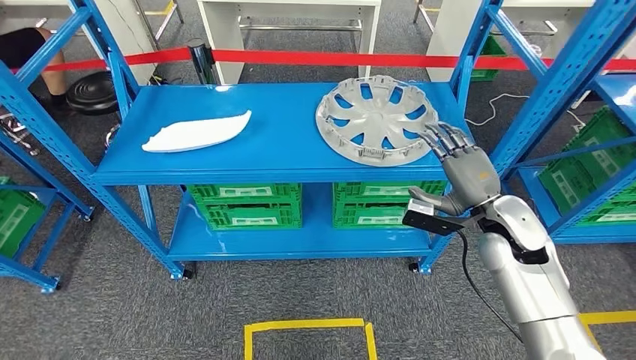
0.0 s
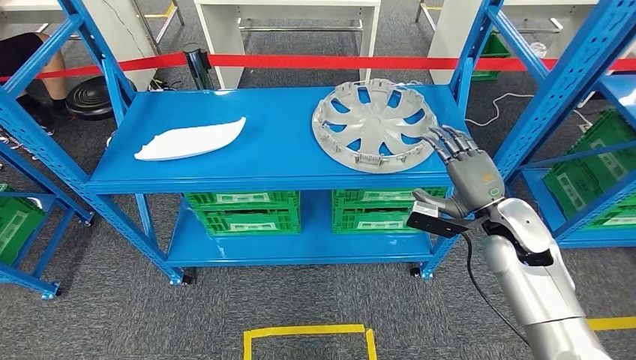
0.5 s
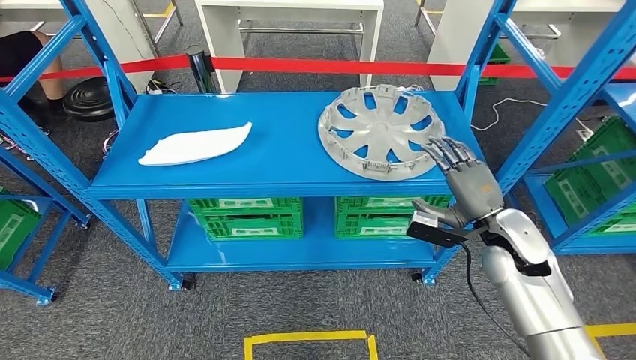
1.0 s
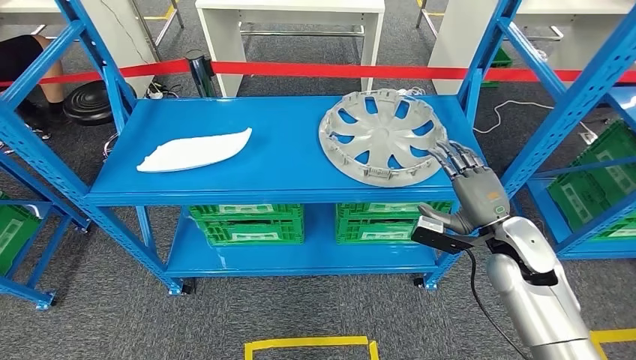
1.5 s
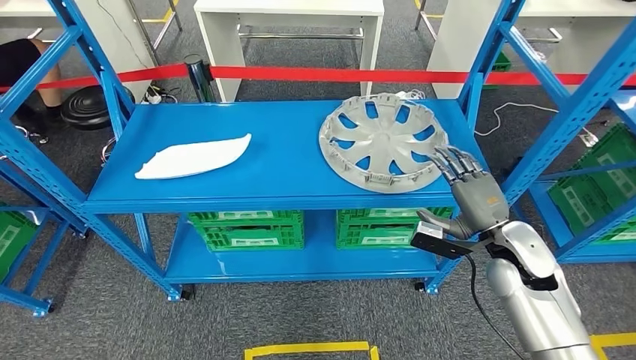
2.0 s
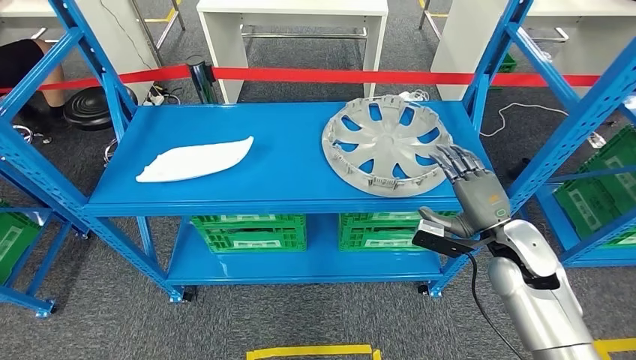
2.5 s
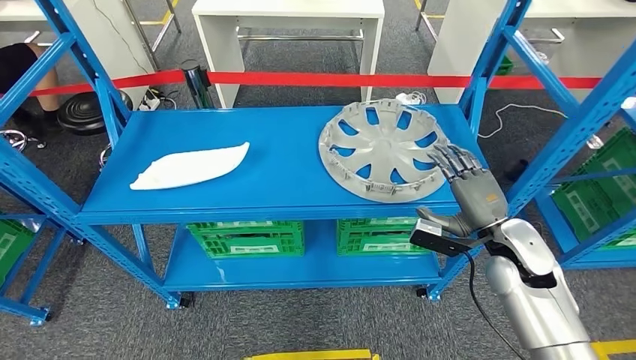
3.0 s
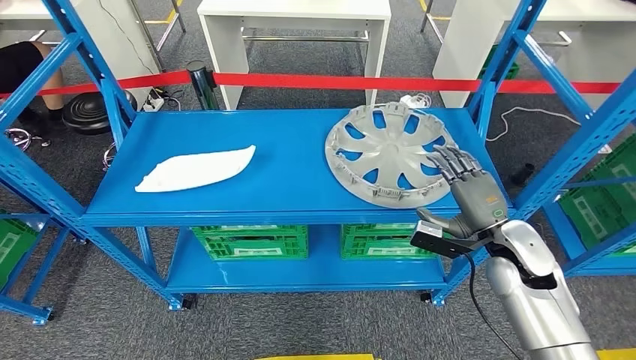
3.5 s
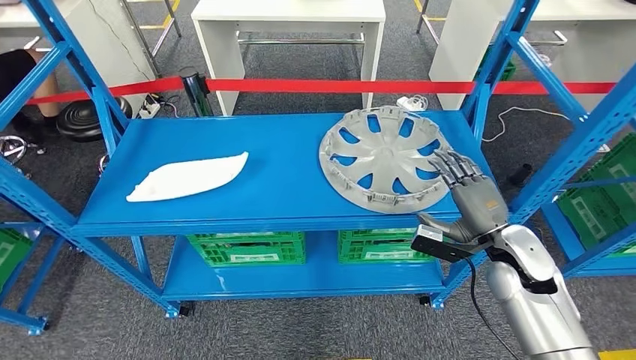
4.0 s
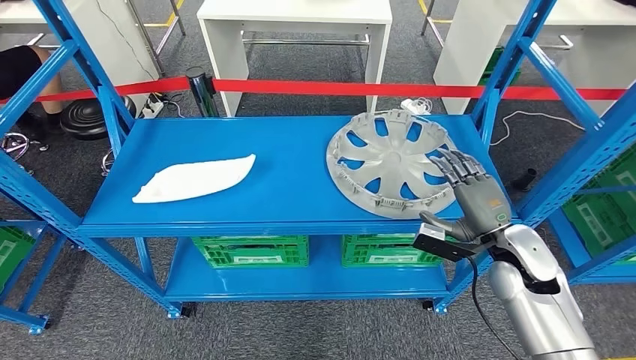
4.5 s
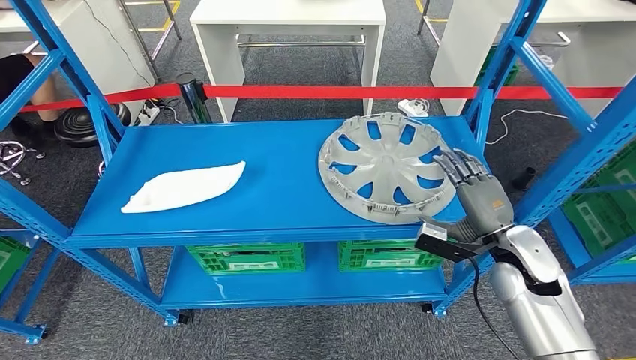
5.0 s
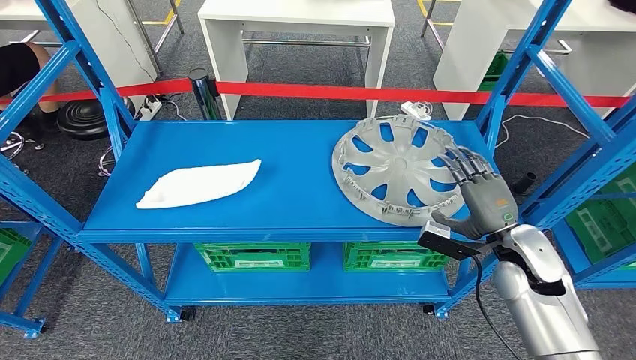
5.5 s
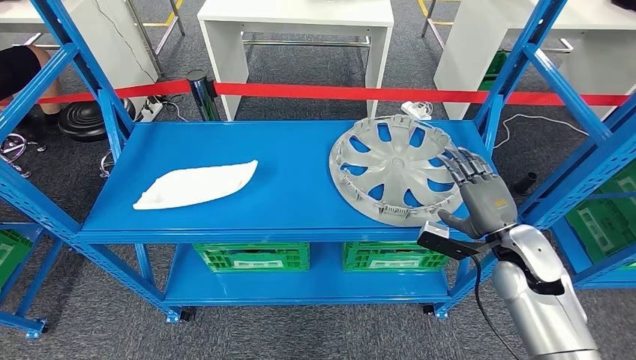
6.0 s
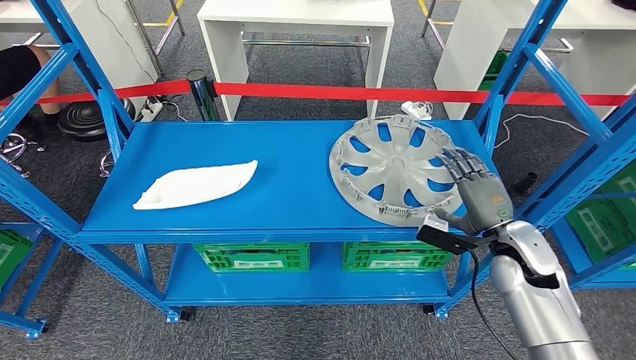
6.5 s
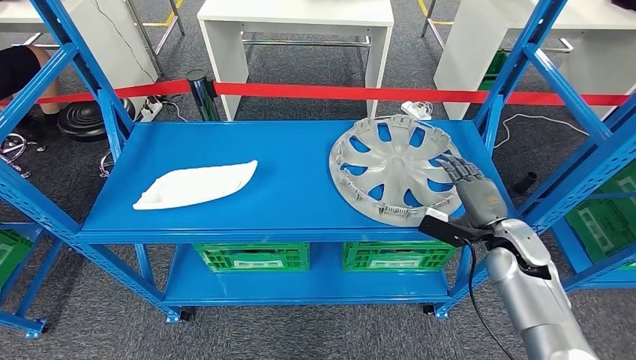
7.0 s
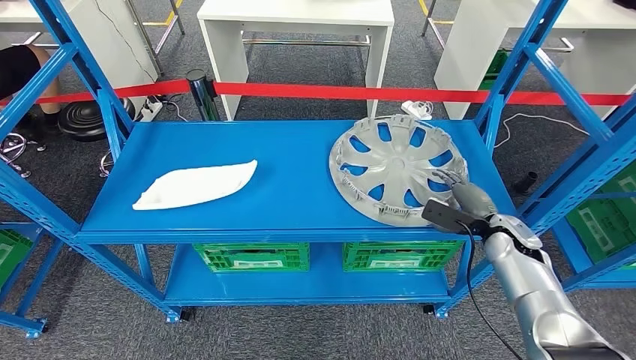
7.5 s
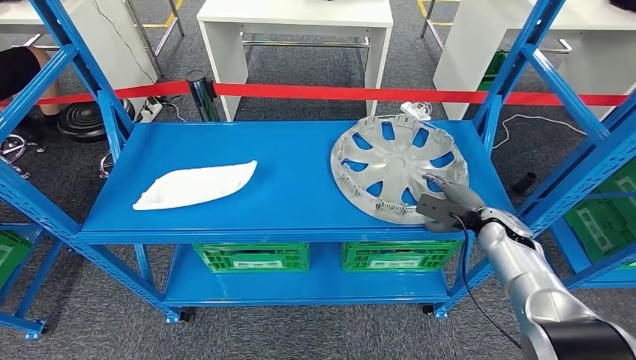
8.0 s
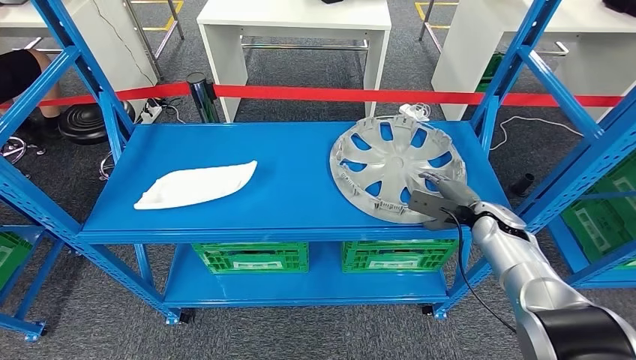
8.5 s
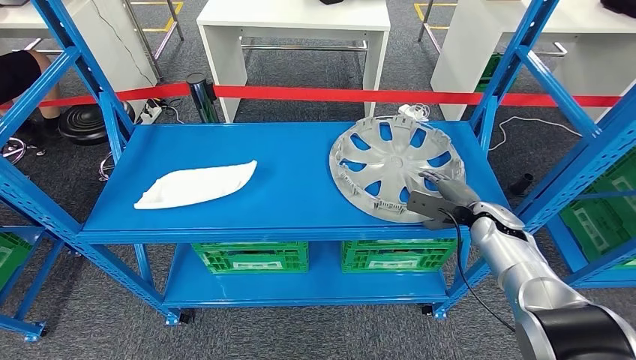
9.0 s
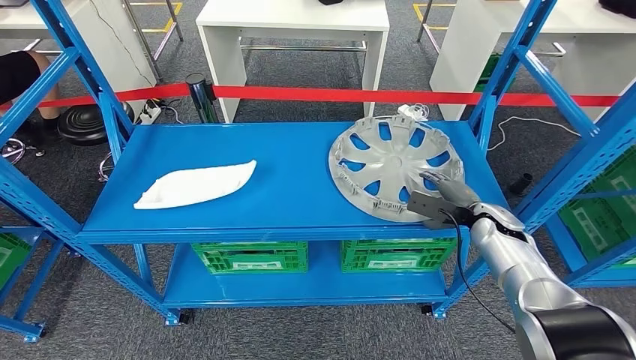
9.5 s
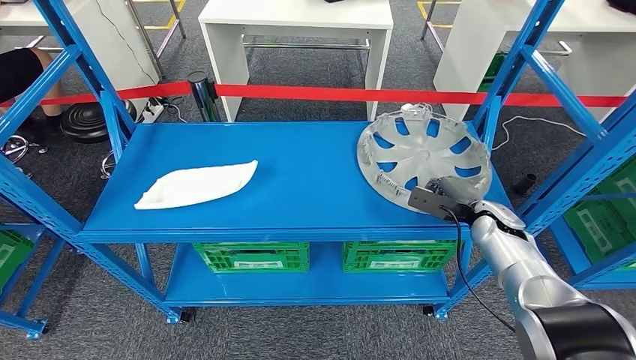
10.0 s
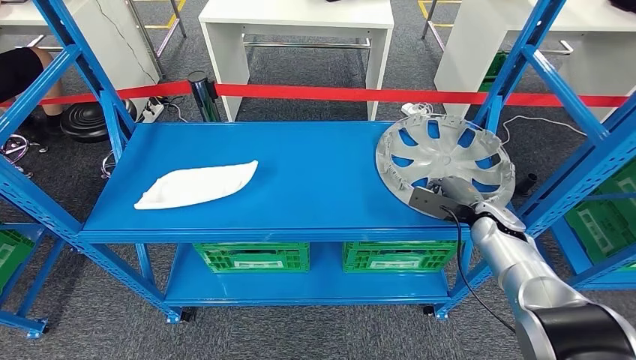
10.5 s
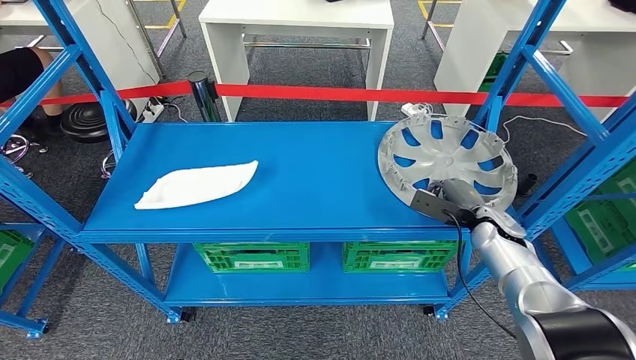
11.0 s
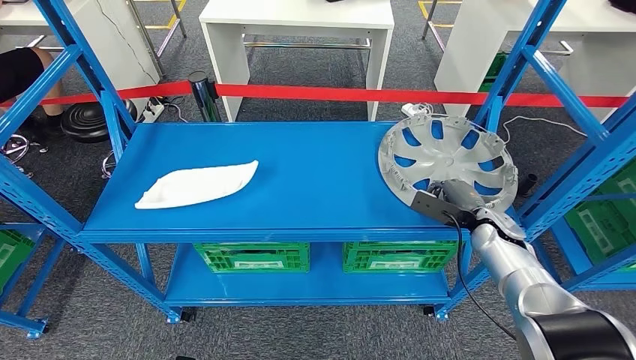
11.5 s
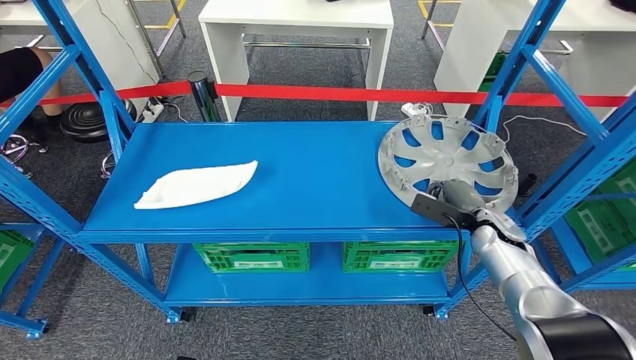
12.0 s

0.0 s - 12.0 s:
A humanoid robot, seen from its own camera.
6.0 s - 8.0 s: The right hand is displaced forward and downward by roughly 10 cm.
8.0 s - 12.0 s: There are only small adjustments of the hands.

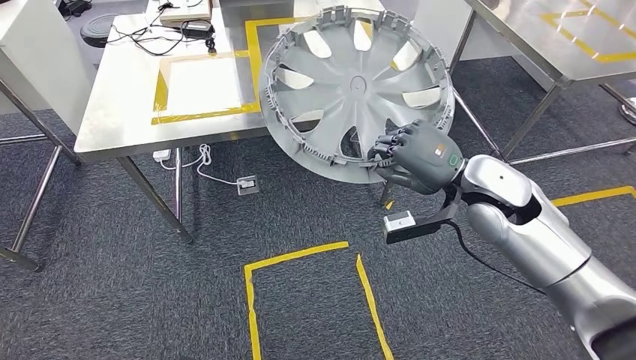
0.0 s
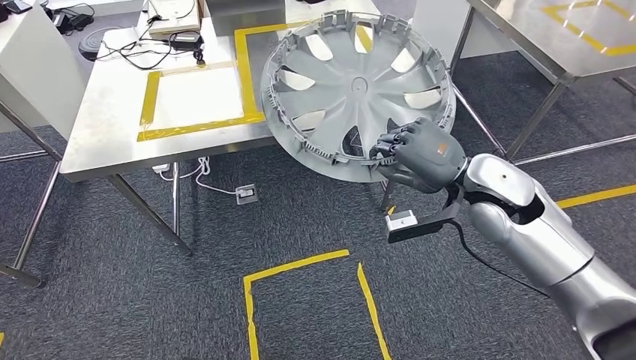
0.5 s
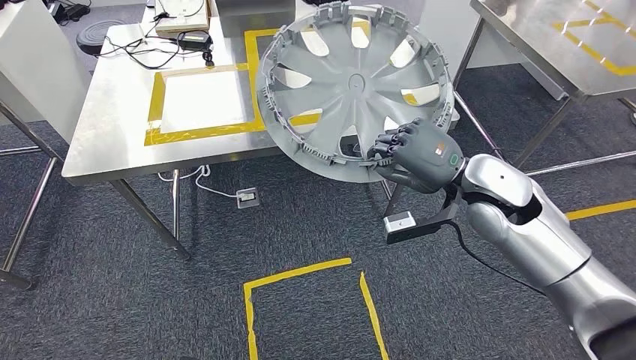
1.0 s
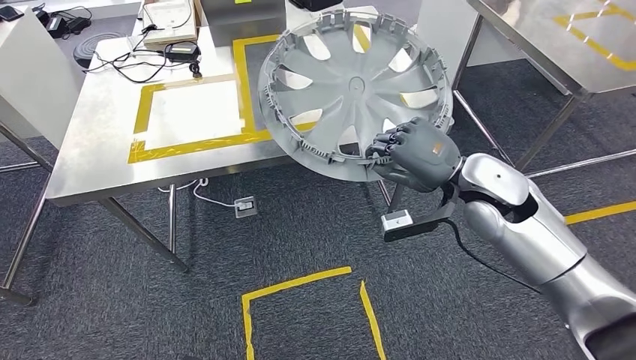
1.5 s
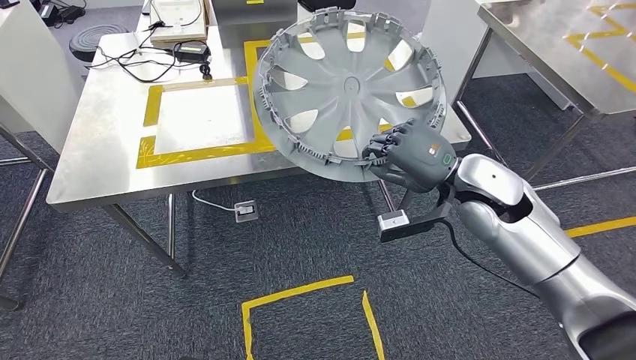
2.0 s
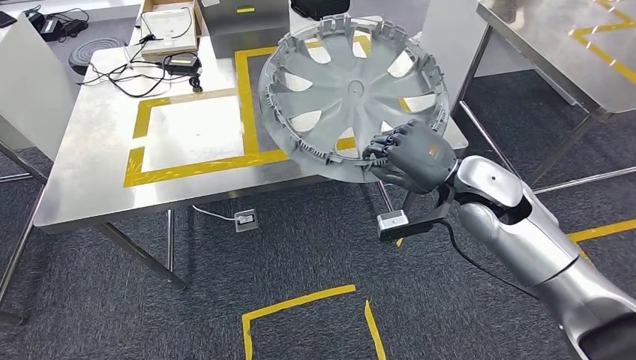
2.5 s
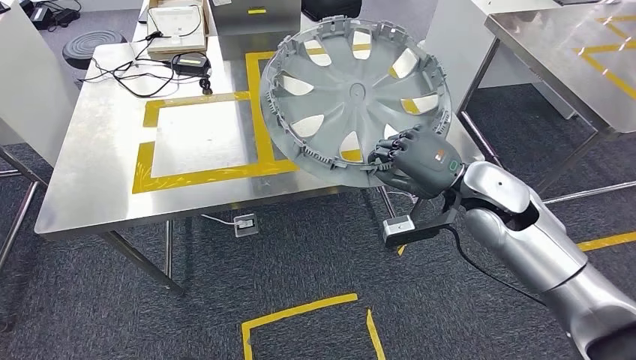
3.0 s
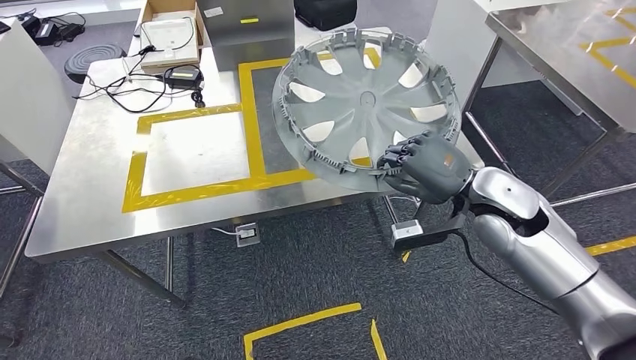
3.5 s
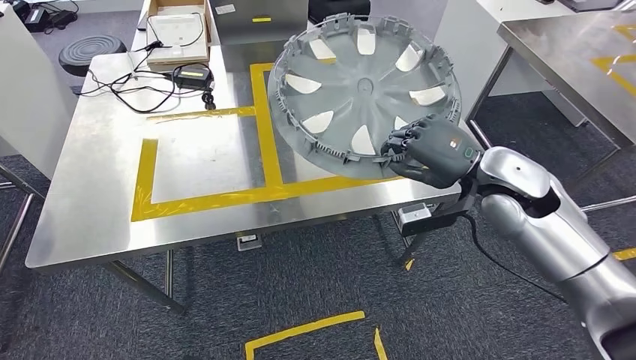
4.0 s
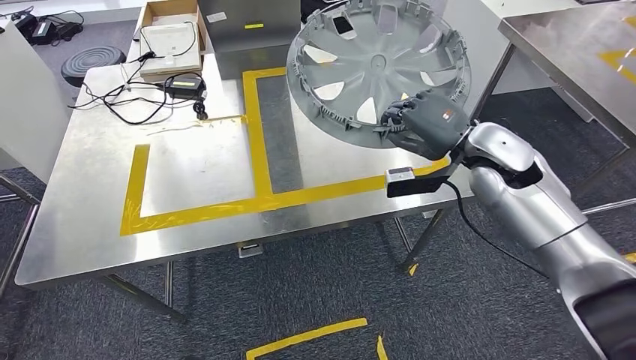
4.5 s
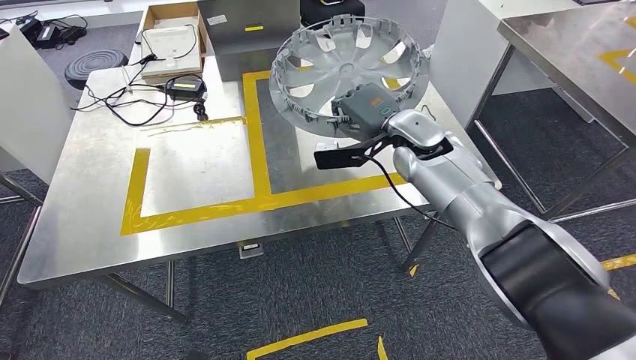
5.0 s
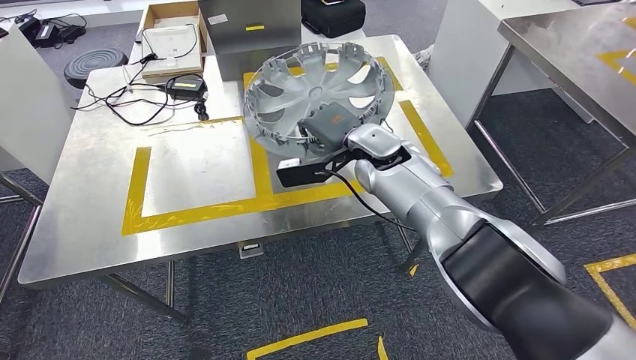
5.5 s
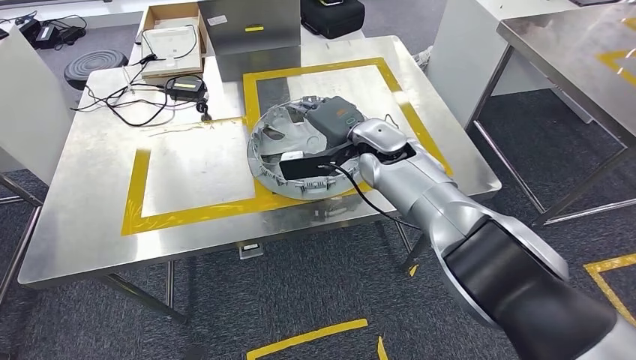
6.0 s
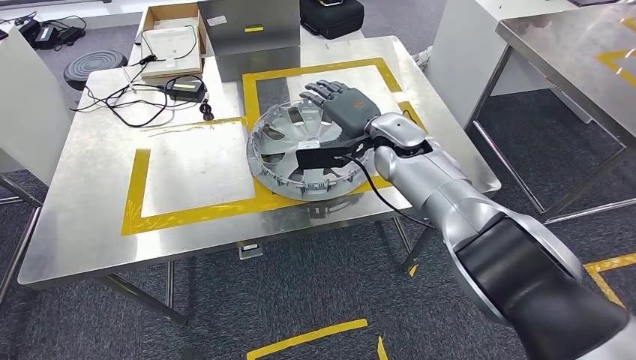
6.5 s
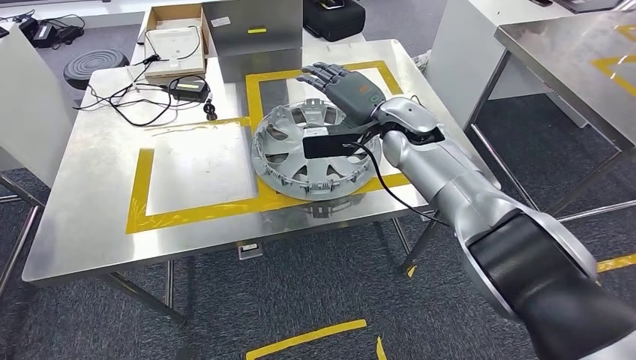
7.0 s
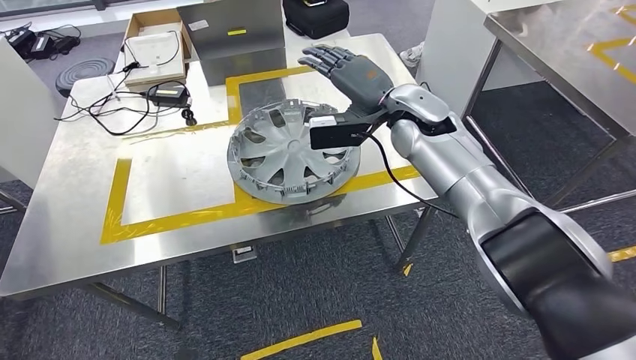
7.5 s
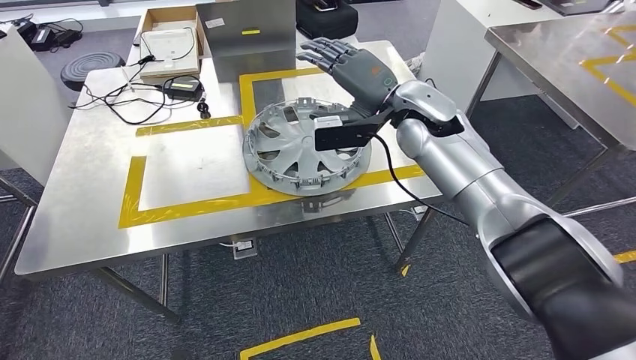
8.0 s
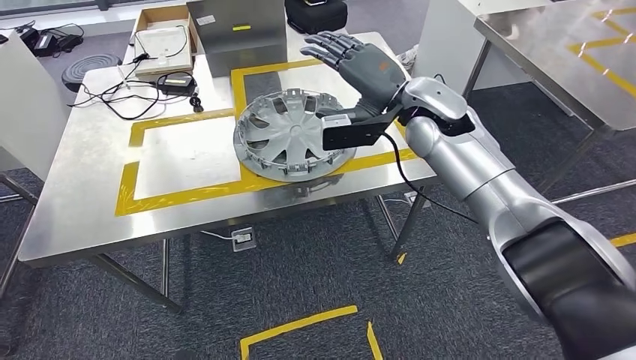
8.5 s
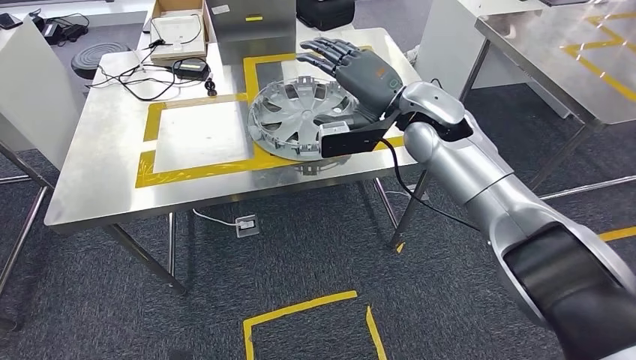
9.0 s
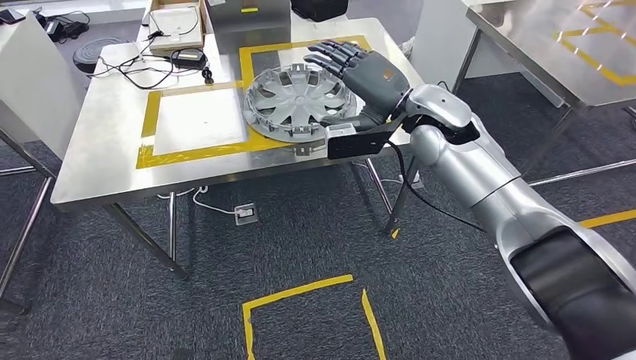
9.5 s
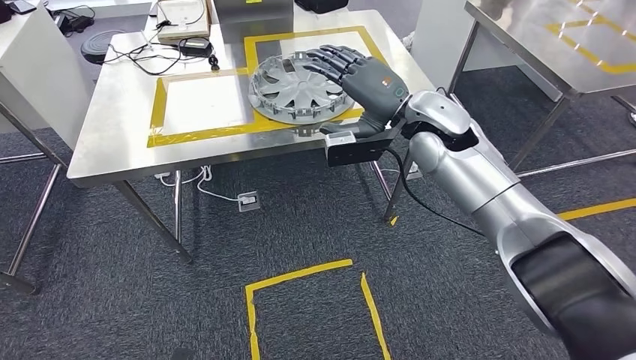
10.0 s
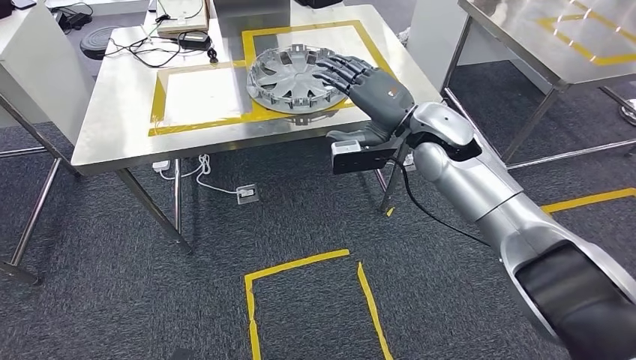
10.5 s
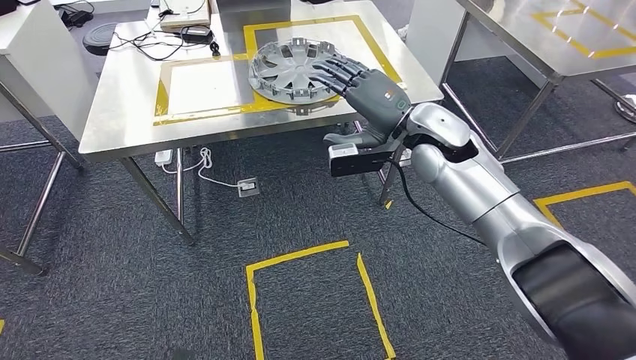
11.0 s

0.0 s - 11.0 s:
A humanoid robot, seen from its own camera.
Step, 0.0 s - 4.0 s: Move the small component to the workbench.
Step, 4.5 s - 7.5 s: Insert the small component into the corresponding slot on the workbench.
